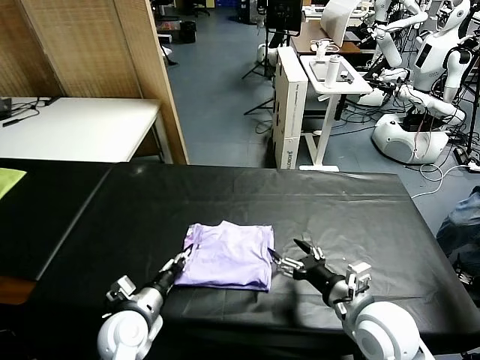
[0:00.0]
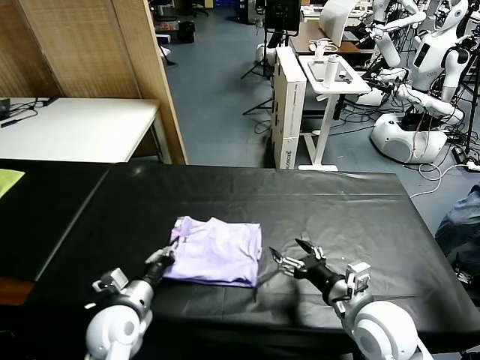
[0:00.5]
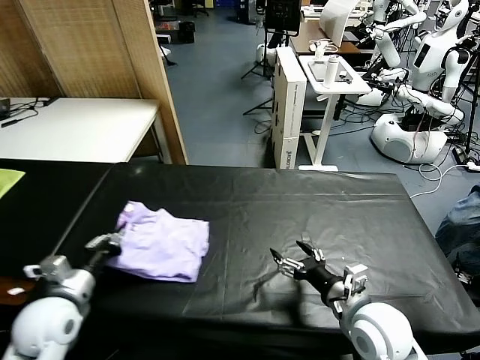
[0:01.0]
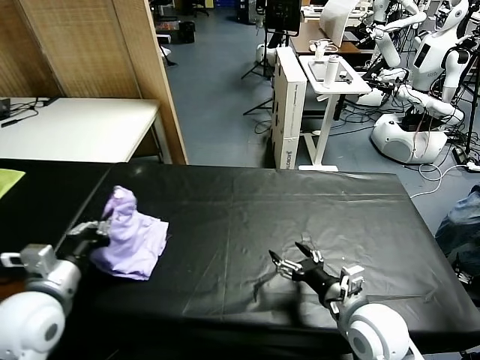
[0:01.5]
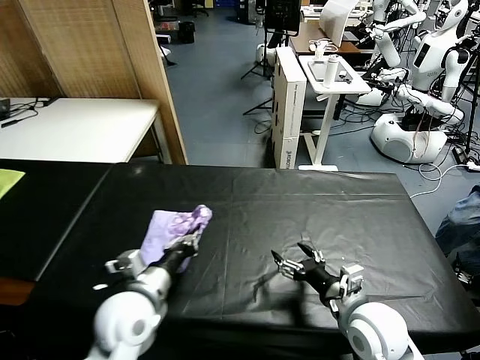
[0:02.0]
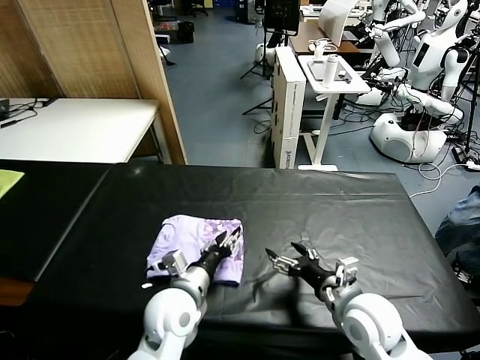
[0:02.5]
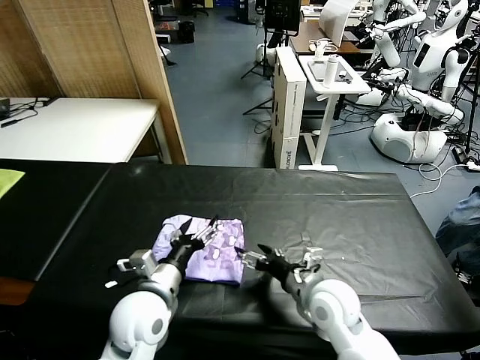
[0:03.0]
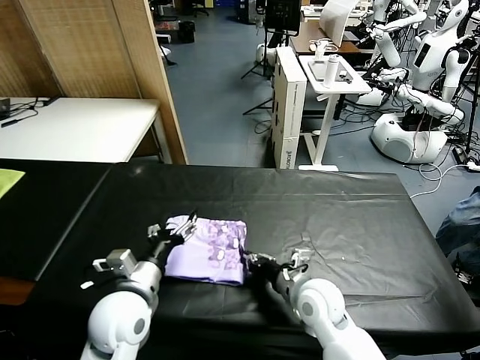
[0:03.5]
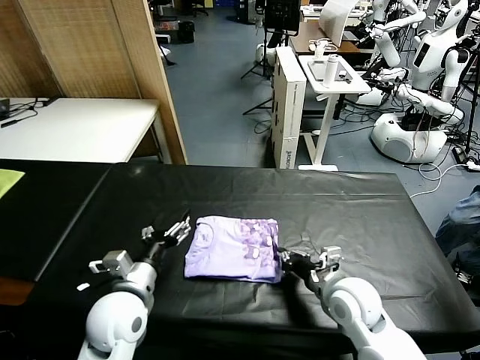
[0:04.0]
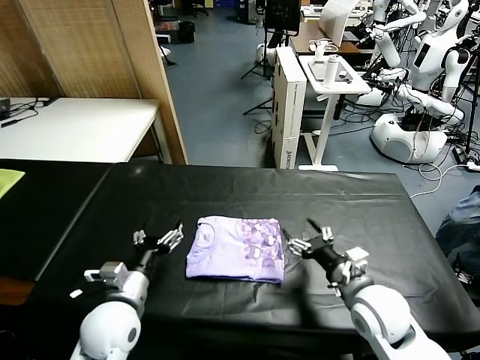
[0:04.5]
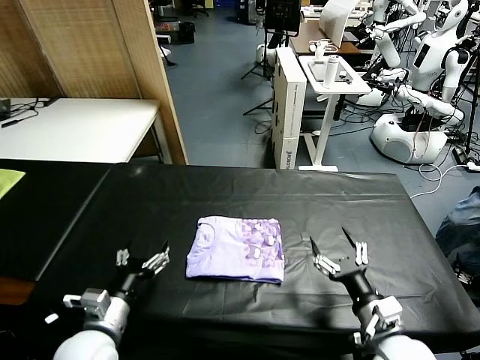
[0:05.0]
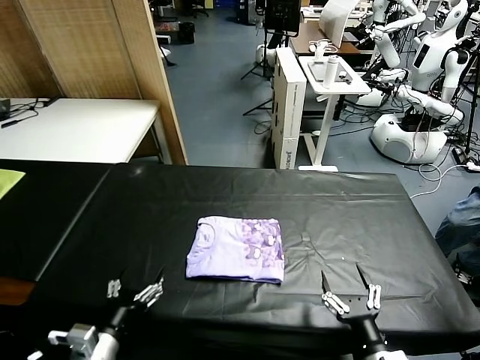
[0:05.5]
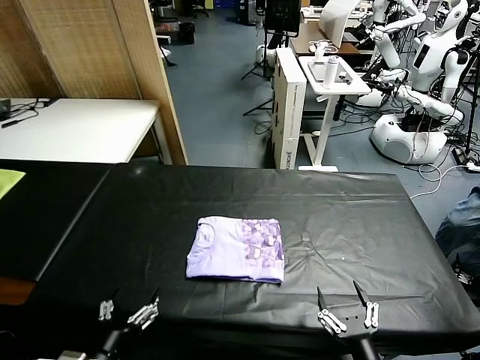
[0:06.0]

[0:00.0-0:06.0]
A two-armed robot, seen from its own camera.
Task of the whole recording: fold and organize the clothes.
Step, 0:00.0 to 0:02.5: Flip the folded clothes over with left gripper.
Step, 0:03.0 to 0:04.0: Drag the clothes to the center of the table.
0:00.0 to 0:02.0: The left gripper shifts some 10 cm upward, and closes its fingers.
0:02.0 to 0:04.0: The left gripper moves about 10 cm to the right and comes back, and opens its fingers, while the right gripper is displaced forward by about 5 cm, reaches approximately 10 cm to the left, then returns, and closes.
0:04.0 to 0:06.0: The two grippers go approximately 20 cm backward. The right gripper opens.
